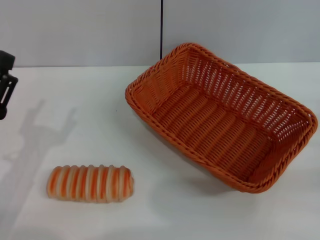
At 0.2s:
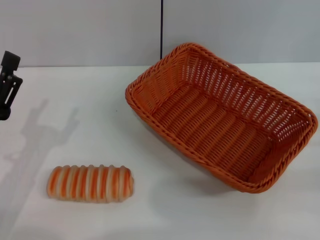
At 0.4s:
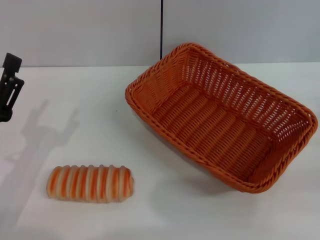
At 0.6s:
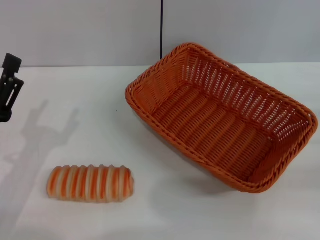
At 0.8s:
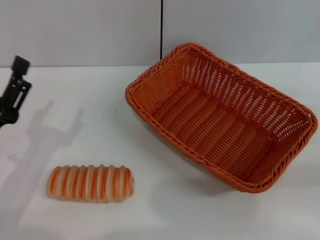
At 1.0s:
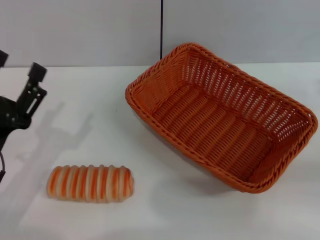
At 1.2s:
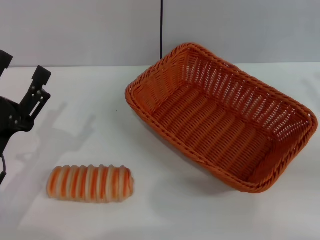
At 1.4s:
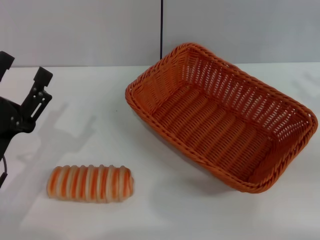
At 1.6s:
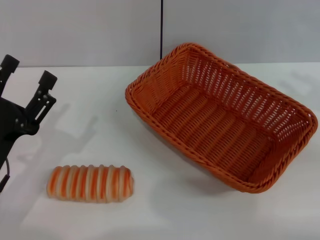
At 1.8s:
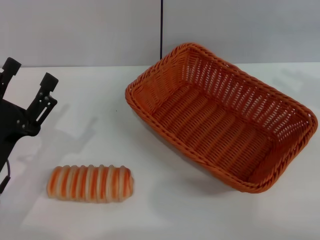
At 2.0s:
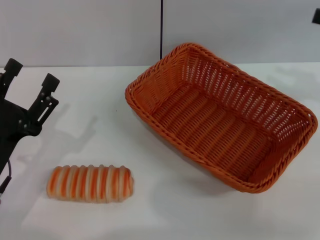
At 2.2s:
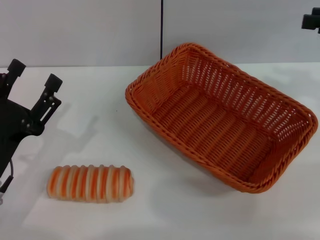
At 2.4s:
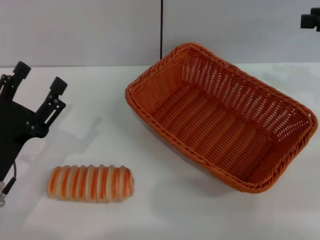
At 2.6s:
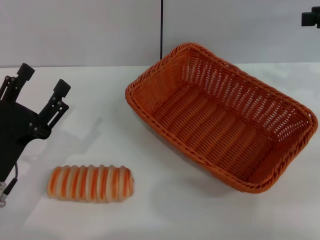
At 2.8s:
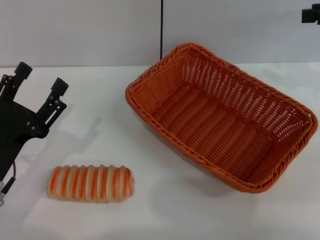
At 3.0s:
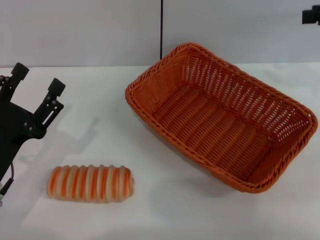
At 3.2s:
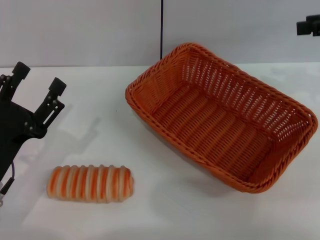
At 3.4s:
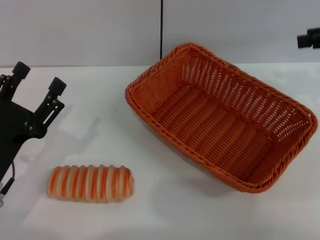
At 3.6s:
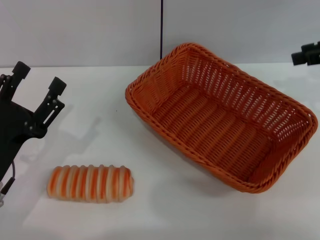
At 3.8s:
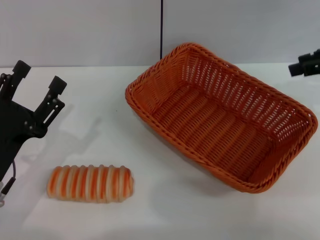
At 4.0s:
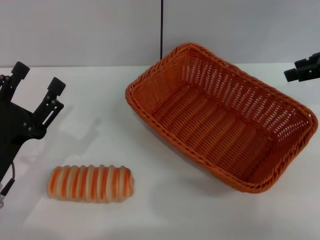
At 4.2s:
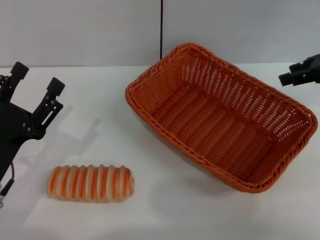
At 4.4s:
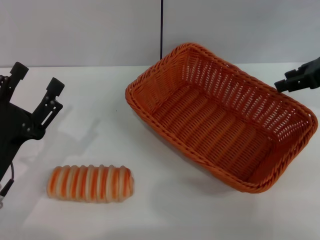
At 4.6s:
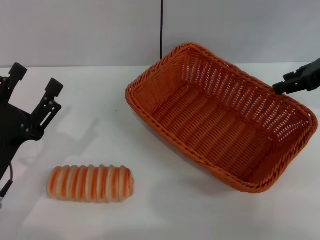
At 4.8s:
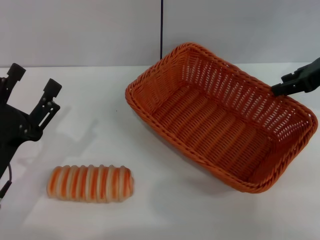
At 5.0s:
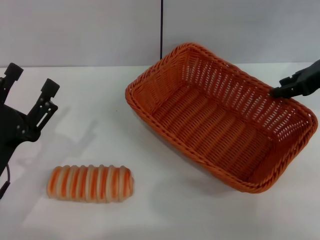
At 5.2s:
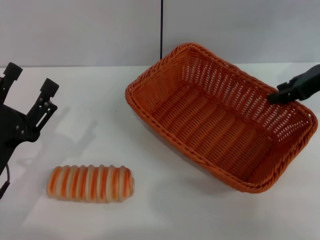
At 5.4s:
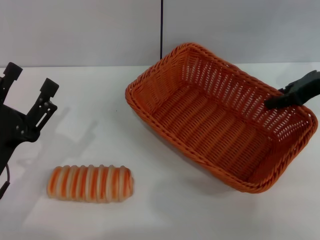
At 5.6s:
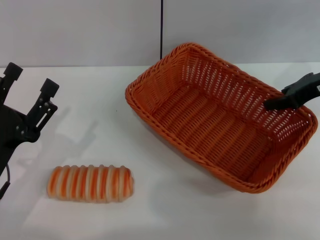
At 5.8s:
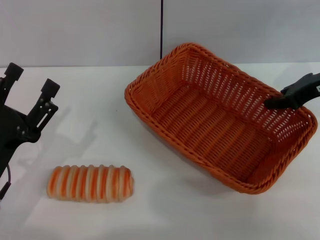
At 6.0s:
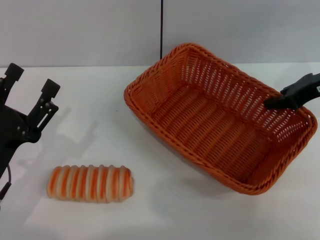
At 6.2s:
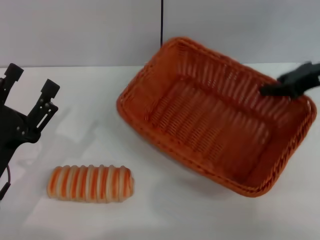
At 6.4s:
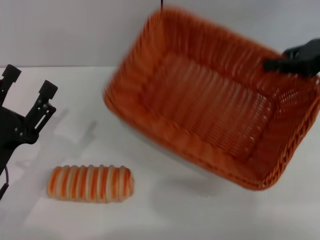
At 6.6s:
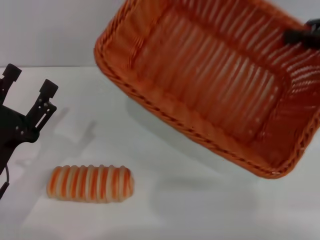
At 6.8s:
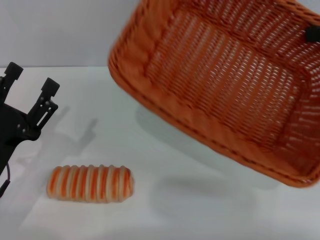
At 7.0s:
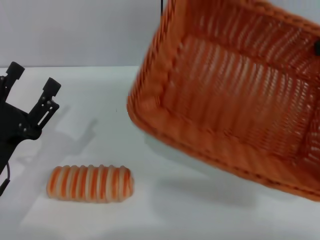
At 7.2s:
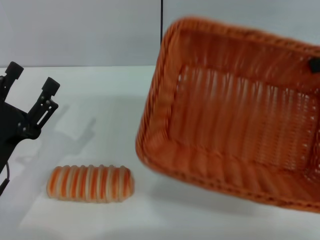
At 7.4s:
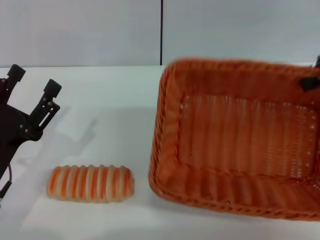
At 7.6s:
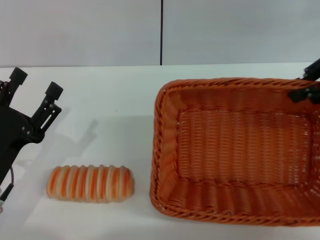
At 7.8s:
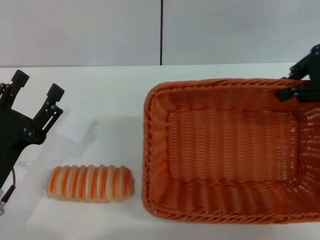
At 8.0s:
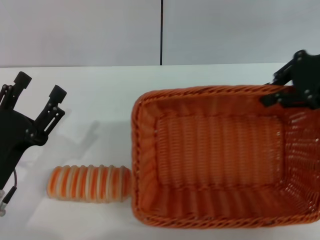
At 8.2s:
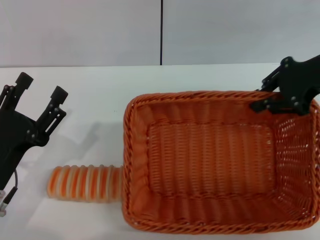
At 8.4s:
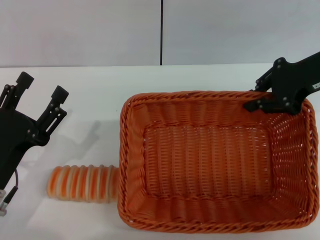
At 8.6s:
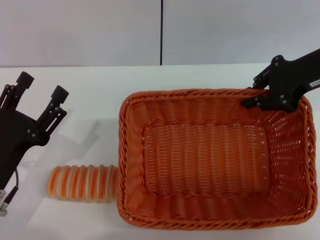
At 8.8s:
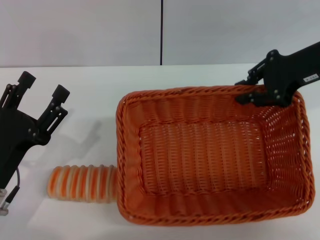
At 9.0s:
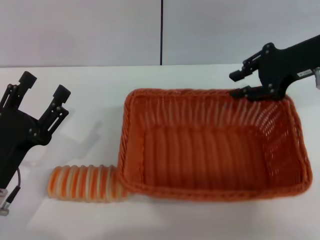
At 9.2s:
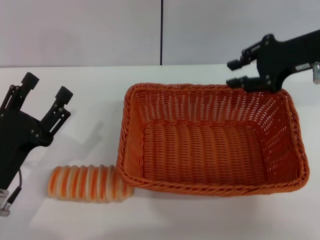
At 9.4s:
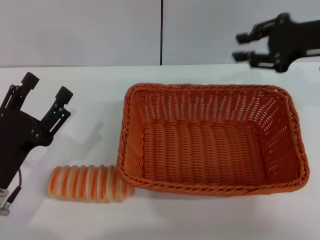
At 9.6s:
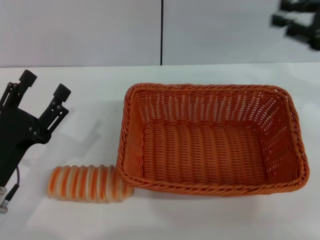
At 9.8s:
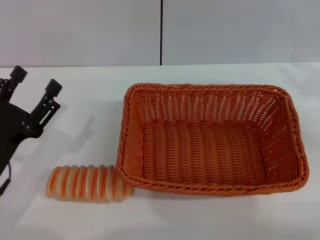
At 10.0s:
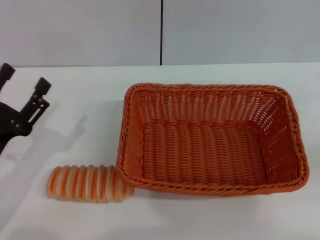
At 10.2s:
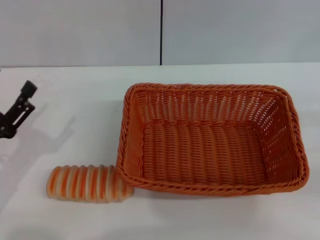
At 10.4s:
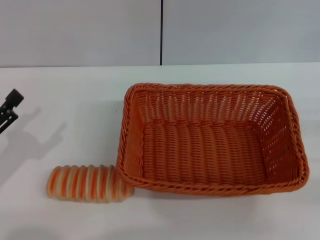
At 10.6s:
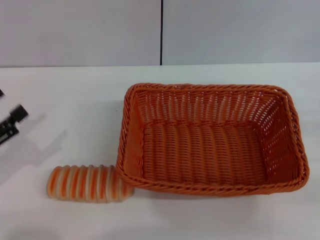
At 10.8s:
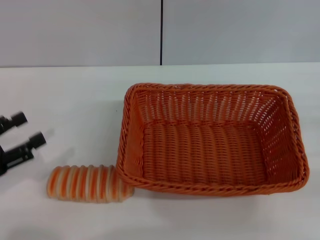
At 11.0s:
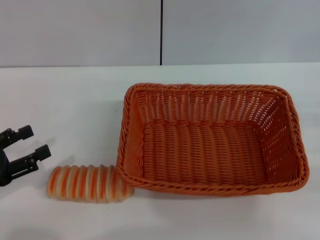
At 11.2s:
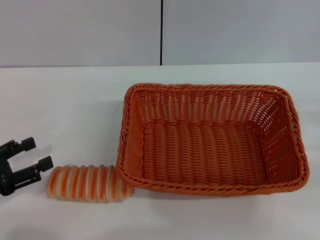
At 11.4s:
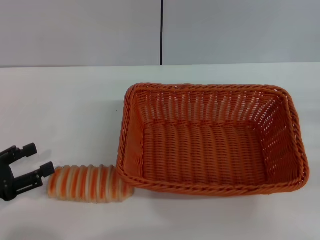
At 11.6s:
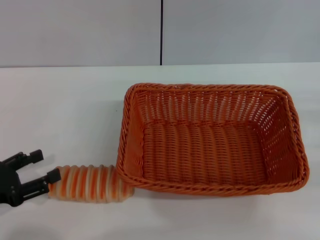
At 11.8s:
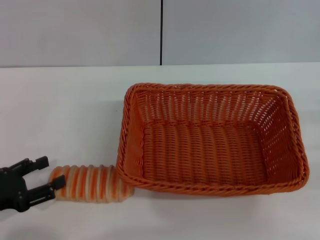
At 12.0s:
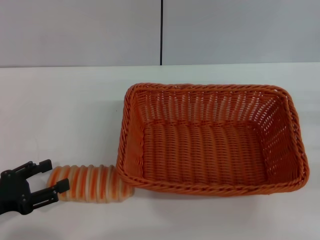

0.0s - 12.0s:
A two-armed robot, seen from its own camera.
Step, 0.0s - 7.4s: Pick up the light basket with the right gripper.
Step, 7.8s - 9.4s: Place the light basket in the center of view with the right gripper.
3.0s - 4.4s: The right gripper changes place by some 5 cm.
4.4s - 6.0s: The right gripper closes.
6.0s - 7.6s: The right gripper goes roughly 10 cm upward.
7.6s - 9.0s: The right gripper heads to the left, covering roughly 5 cm, and opens.
9.0s - 10.4s: The right gripper heads to the right, backward and downward, covering approximately 25 cm; the left gripper goes some 10 cm to the left.

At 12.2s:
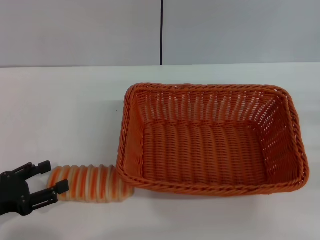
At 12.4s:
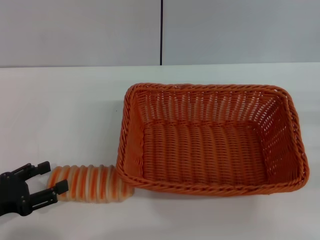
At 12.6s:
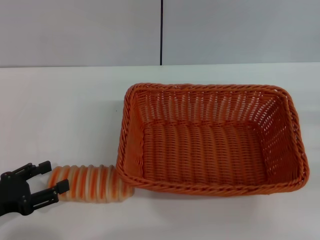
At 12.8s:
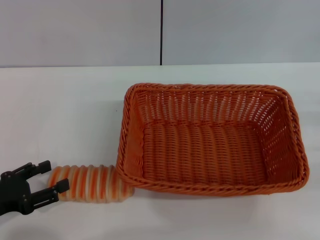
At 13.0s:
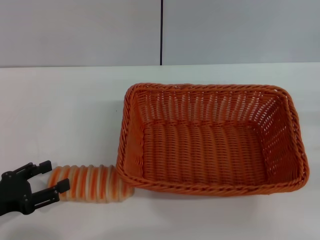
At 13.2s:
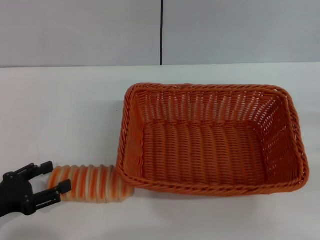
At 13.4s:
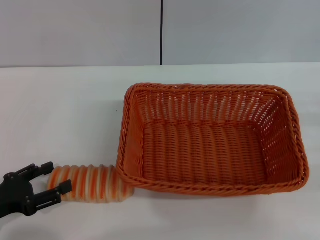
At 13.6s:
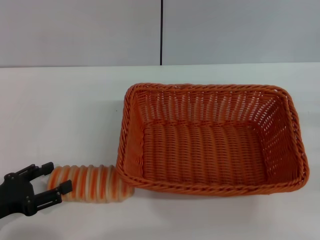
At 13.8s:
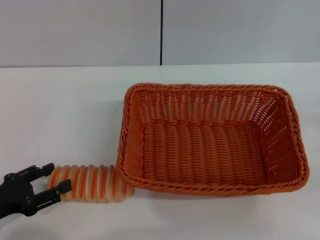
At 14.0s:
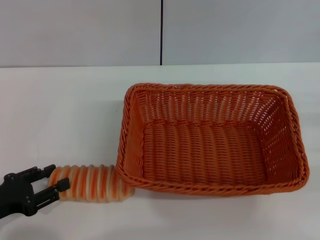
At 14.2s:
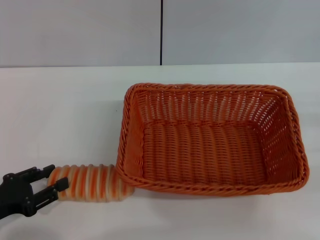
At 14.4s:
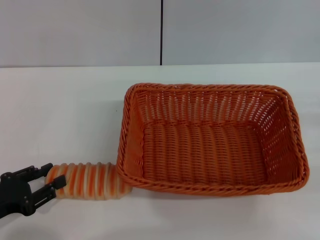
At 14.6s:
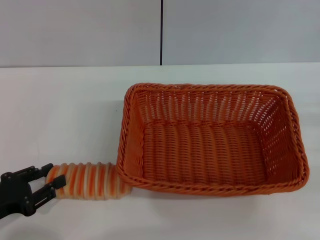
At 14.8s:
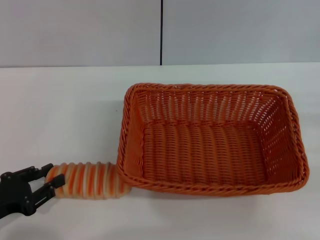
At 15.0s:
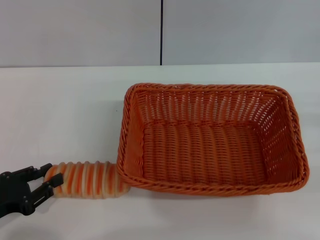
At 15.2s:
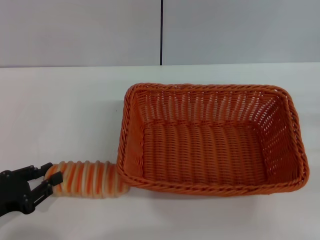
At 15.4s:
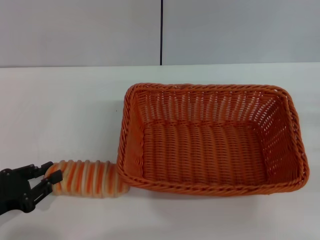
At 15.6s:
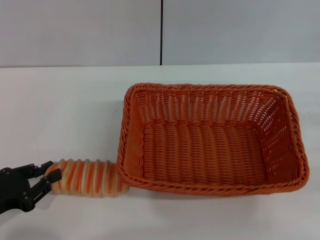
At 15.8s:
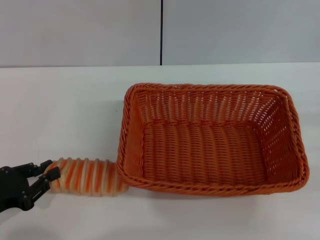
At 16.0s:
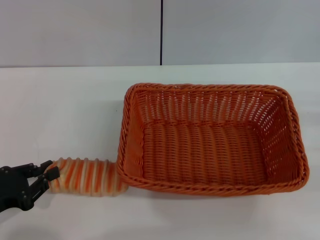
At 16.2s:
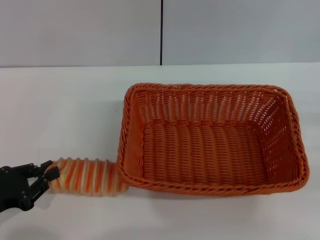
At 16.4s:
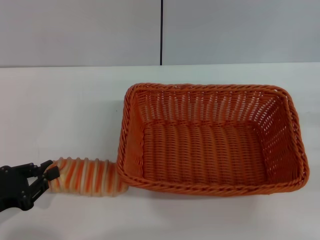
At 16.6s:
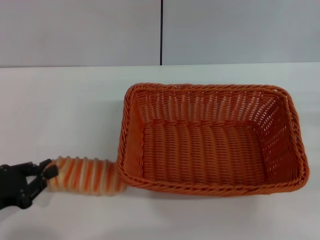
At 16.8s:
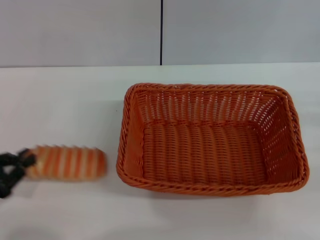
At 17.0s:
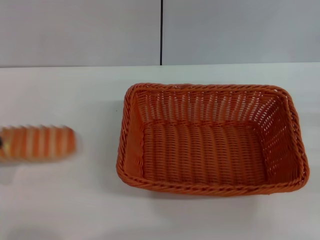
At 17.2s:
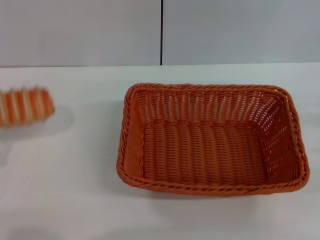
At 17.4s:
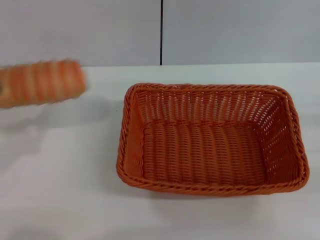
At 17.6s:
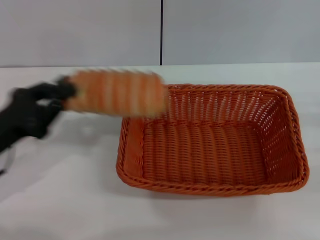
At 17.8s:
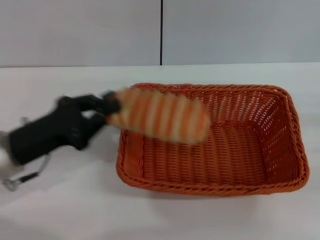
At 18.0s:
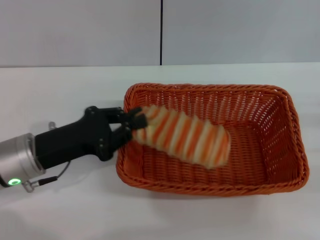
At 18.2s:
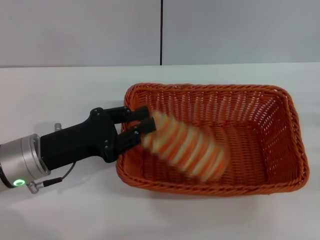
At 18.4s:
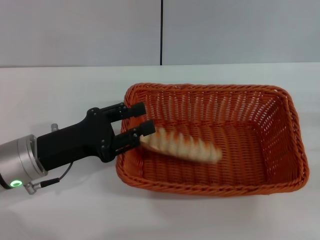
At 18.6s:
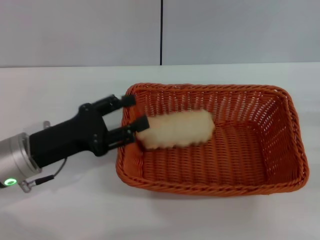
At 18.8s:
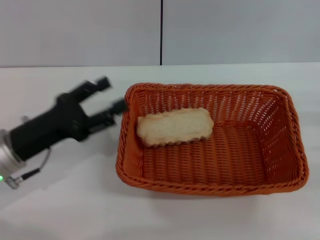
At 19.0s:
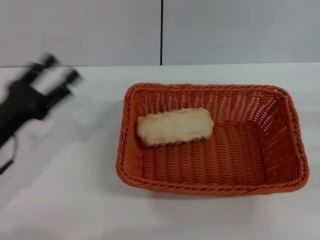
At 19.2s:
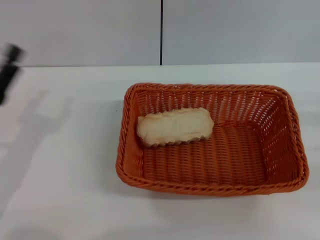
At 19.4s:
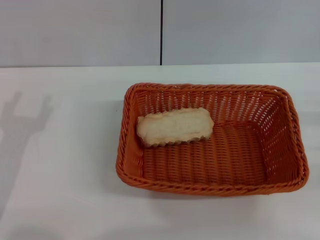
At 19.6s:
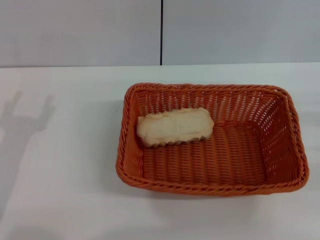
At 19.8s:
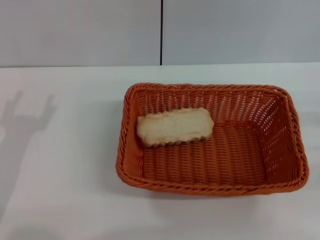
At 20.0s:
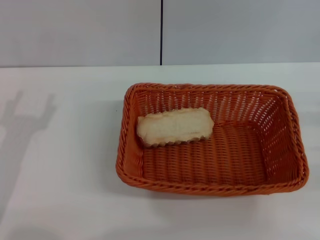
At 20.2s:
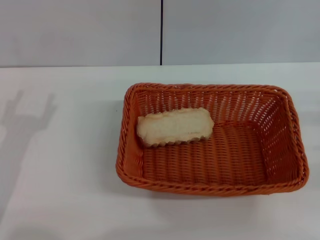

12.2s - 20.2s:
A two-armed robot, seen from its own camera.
Step, 12.2s - 17.2s: Pick up the long bread with the left gripper.
Step, 17.4s - 18.8s: Place the long bread into the dark basket with the left gripper.
12.2s - 13.8s: Both grippers stay put.
13.8s - 15.4s: The left gripper closes its fingers.
15.4s - 17.0s: The left gripper goes about 5 cm to the left.
17.0s - 18.6s: The left gripper is displaced to the right and forward by roughly 20 cm, and opens.
18.6s - 20.2s: The left gripper is displaced to the left by approximately 5 cm, and opens.

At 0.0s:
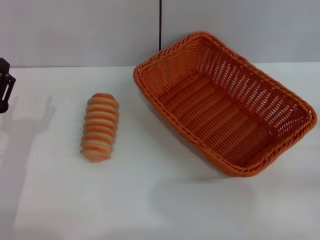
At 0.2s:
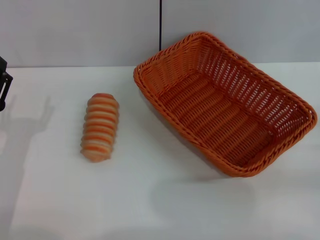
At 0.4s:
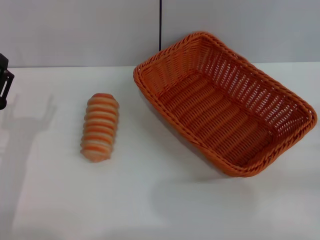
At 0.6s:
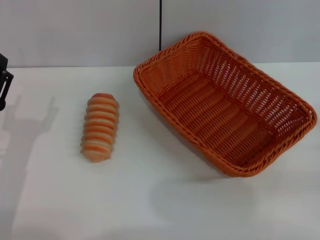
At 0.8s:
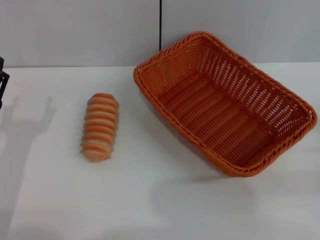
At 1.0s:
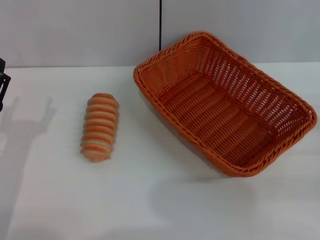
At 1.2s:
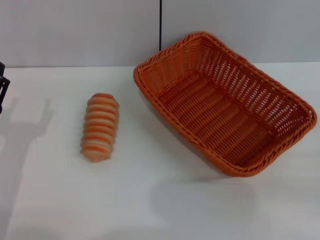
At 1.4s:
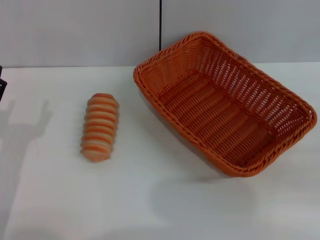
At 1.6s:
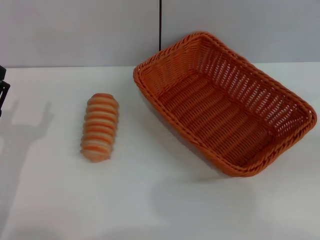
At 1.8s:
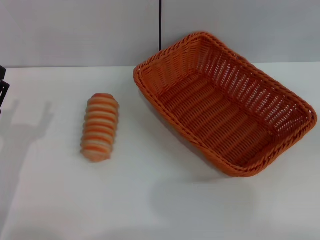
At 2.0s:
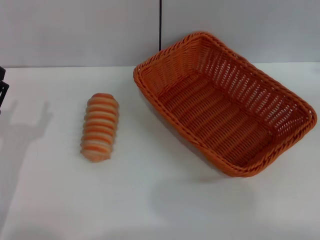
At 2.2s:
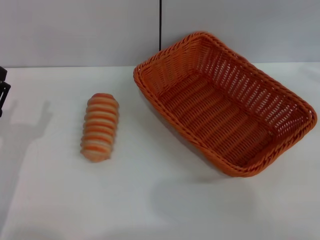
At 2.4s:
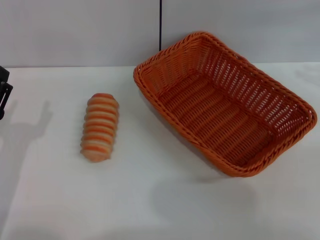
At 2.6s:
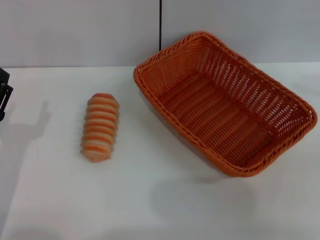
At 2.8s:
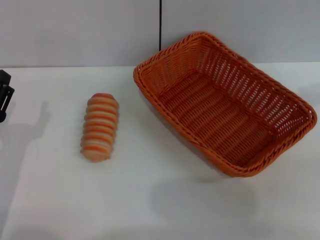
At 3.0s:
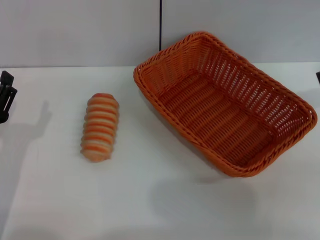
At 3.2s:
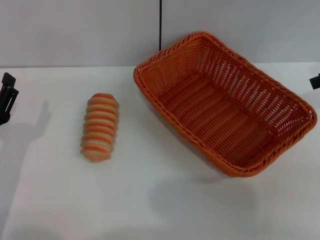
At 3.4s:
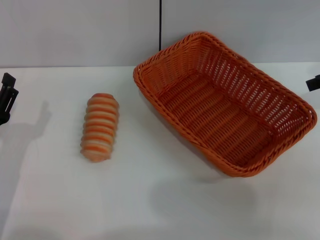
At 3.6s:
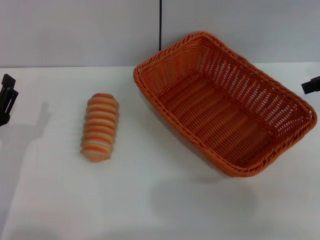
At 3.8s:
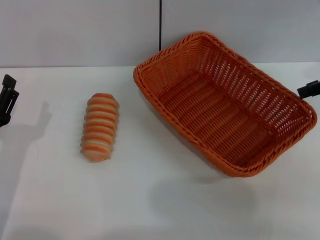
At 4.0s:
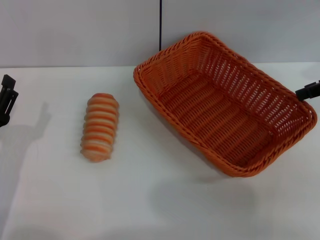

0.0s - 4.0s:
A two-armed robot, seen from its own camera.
1.4s - 2.6s: The right gripper goes approximately 20 cm forward and upward.
